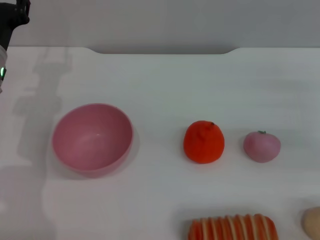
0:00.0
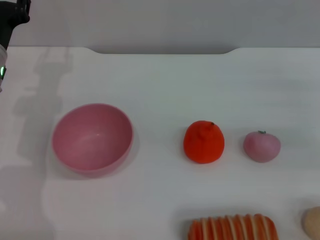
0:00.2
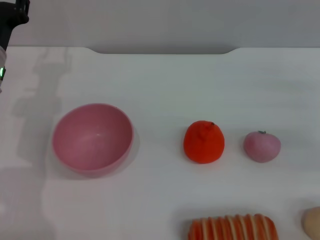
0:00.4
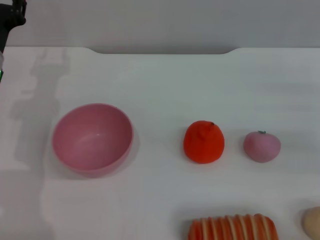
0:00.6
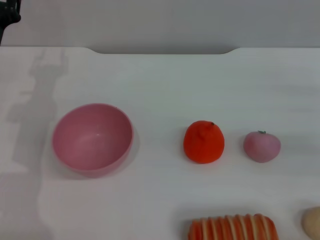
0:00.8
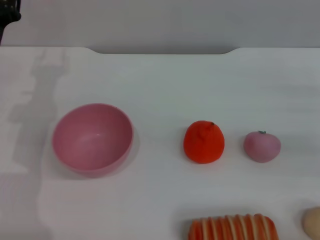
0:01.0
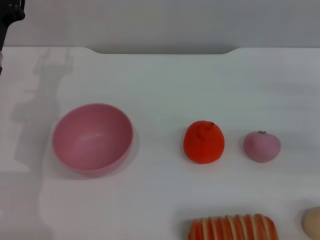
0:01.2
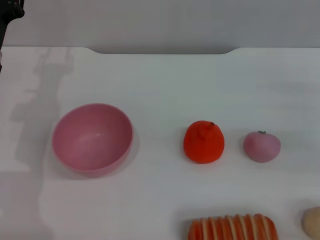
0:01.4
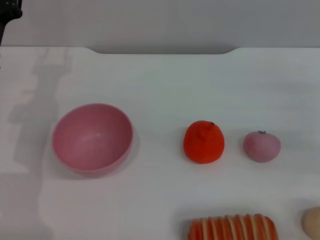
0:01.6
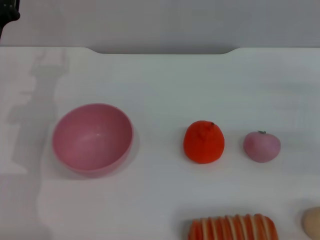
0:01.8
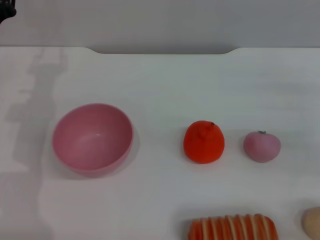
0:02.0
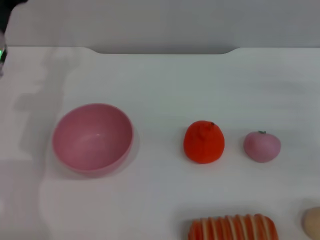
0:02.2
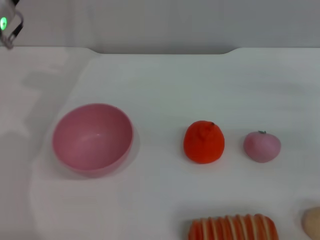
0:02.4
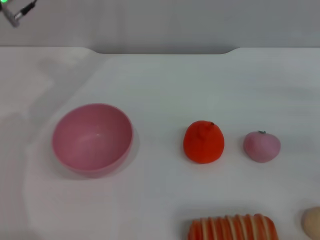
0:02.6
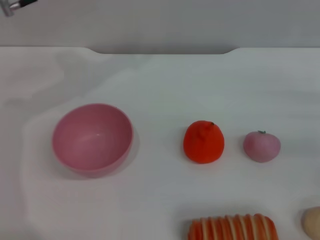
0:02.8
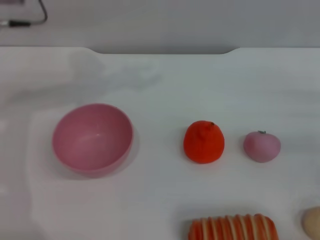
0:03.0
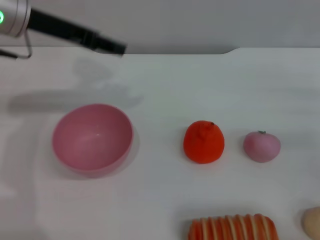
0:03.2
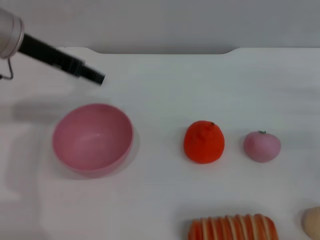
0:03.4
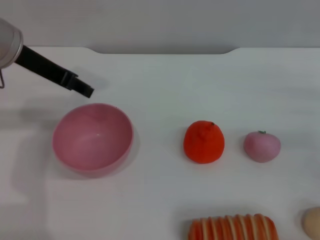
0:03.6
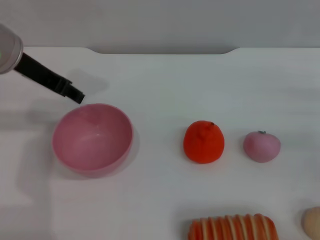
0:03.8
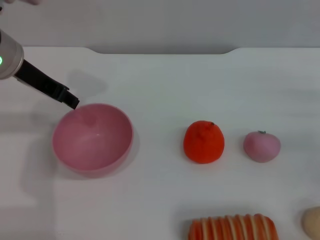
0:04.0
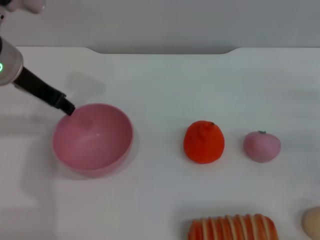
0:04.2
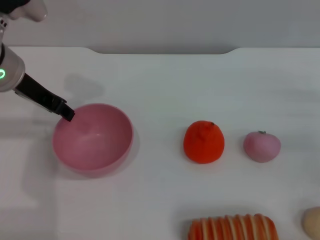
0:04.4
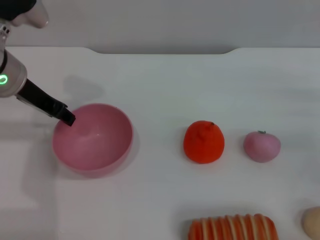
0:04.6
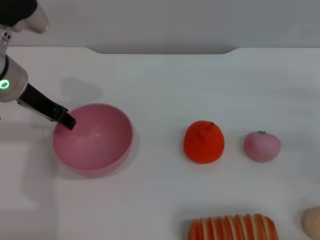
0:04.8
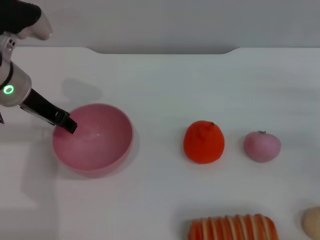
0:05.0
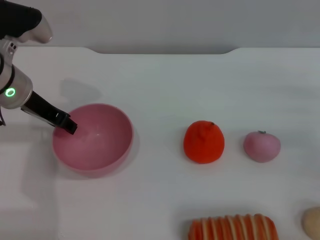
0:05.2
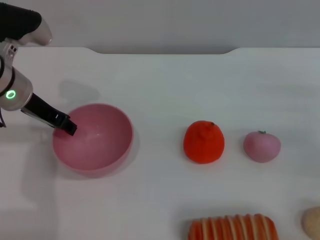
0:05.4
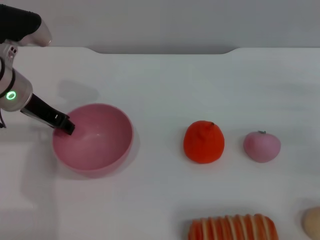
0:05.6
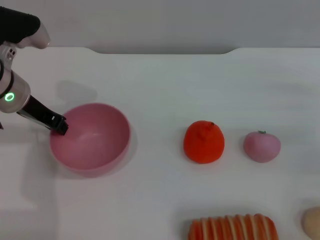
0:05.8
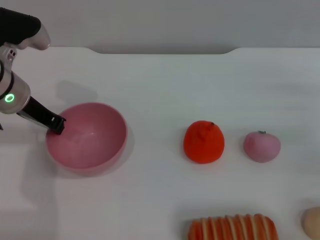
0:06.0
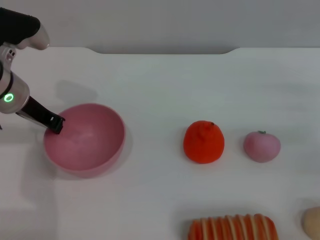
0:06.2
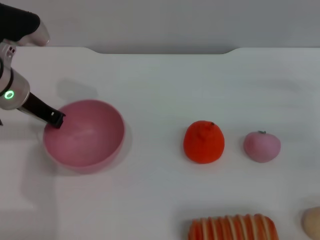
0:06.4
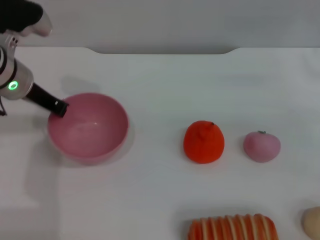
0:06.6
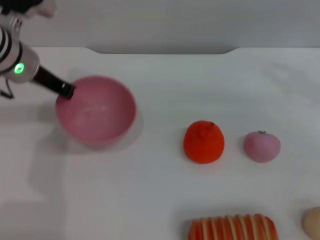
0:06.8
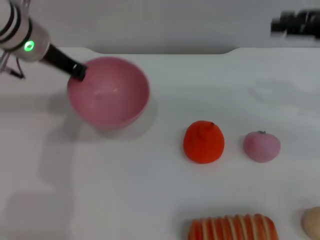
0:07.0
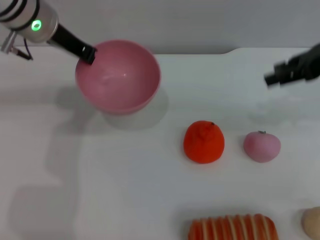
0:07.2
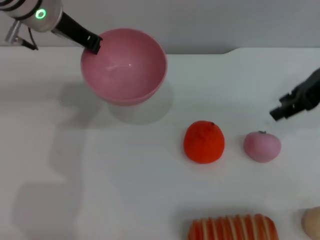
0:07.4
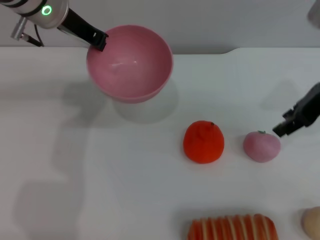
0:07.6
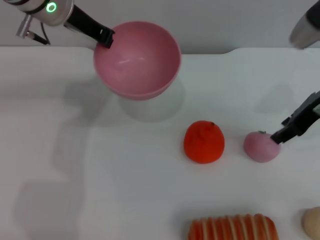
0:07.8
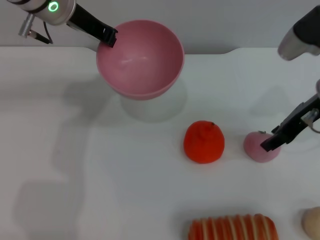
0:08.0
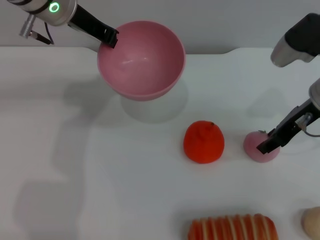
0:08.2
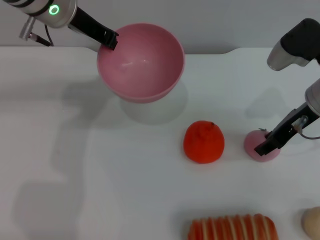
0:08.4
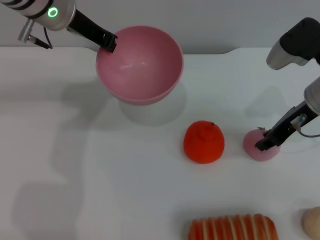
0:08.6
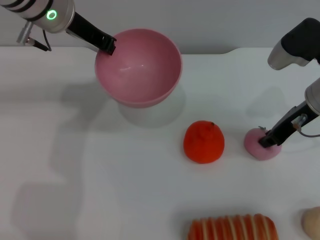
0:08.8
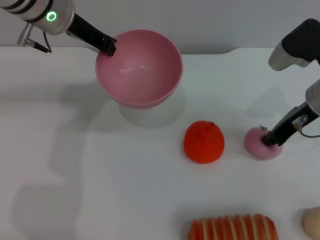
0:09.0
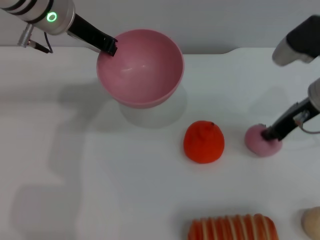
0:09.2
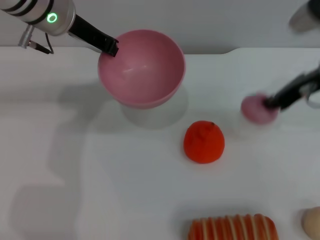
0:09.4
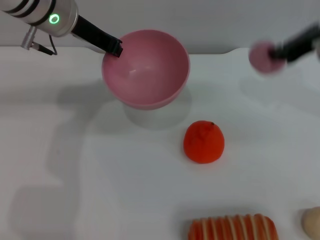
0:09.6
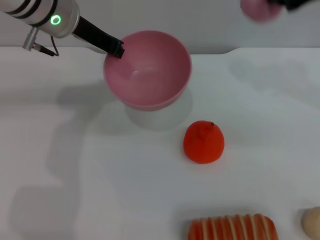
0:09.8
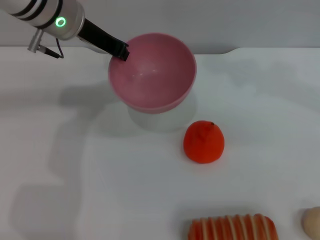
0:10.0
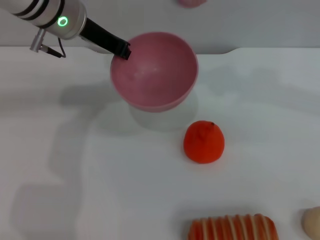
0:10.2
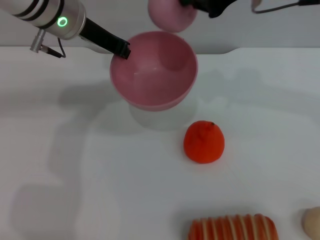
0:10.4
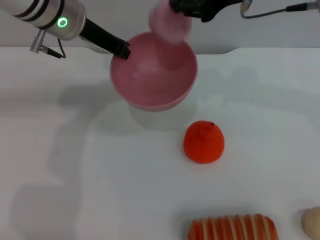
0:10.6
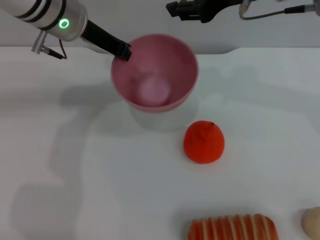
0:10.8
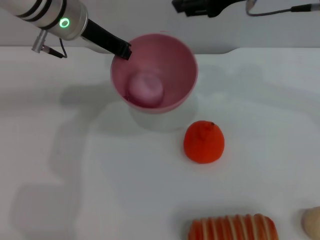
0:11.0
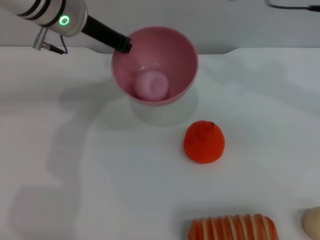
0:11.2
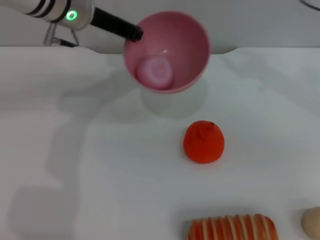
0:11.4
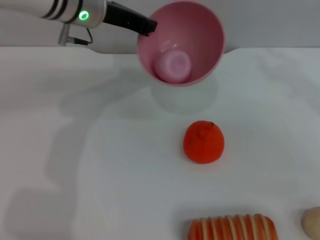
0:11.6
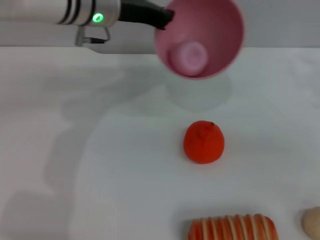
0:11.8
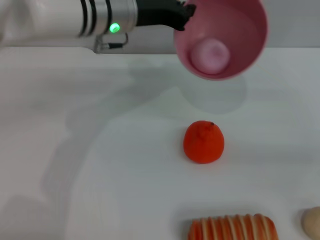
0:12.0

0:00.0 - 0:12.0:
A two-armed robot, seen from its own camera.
Task of the whole recording: put the peach into the pink bowl and pour it out repeatedly.
Step, 0:00.0 - 0:06.8: Pick up the bowl with the left gripper.
Step, 0:07.0 - 0:09.4: Pick up the peach with the right gripper.
Step, 0:09.6 - 0:11.0: Place the peach into the bowl.
0:00.0 - 0:01.6: The grippers make only small movements.
0:01.6 - 0:03.0: The left gripper heads upward, covering roughly 15 cm.
0:03.0 - 0:04.4: The left gripper shifts roughly 5 cm downward.
0:04.4 - 0:06.0: The left gripper closes up.
0:06.0 - 0:07.6: The left gripper travels upward, to the right and forward by approximately 10 cm, while the right gripper travels upward and to the left by approximately 15 cm.
0:07.6 - 0:09.0: The right gripper shifts some 10 cm downward, and closes.
0:09.0 - 0:10.4: The right gripper goes approximately 20 cm upward and to the left.
0:10.4 - 0:12.0: The left gripper travels to the right by about 5 cm; the right gripper is displaced to the right and downward by some 30 cm, and opens up.

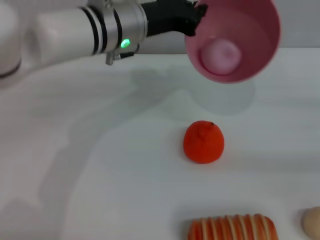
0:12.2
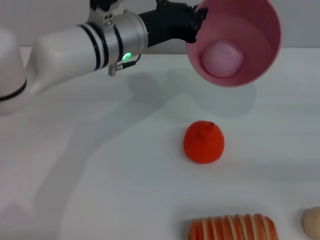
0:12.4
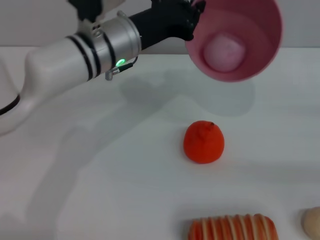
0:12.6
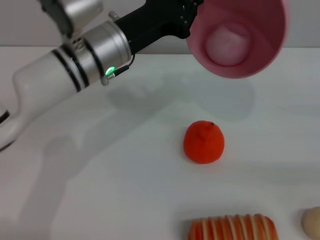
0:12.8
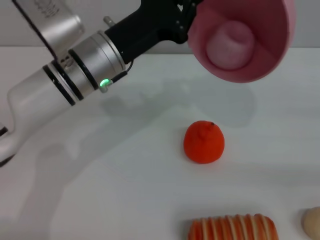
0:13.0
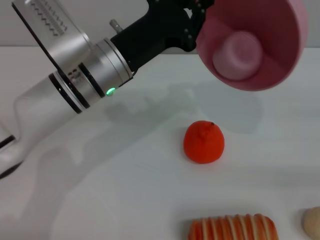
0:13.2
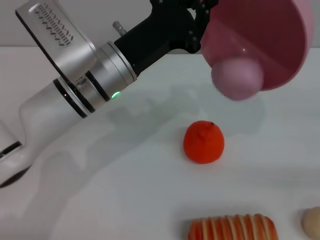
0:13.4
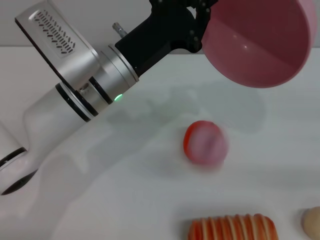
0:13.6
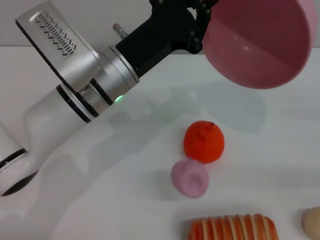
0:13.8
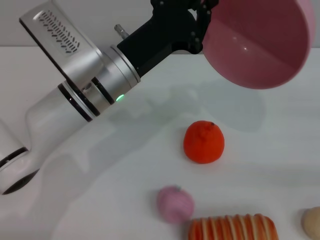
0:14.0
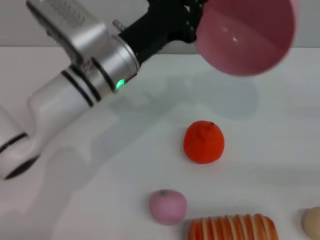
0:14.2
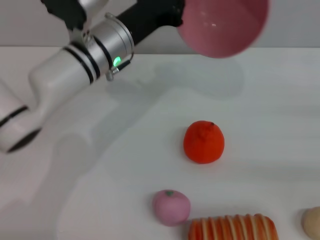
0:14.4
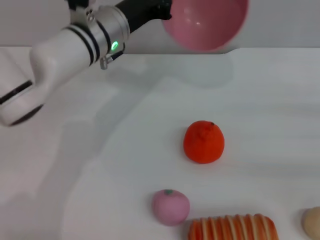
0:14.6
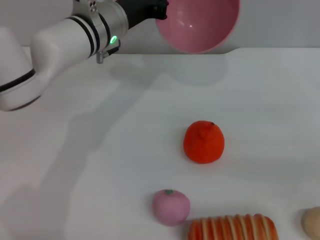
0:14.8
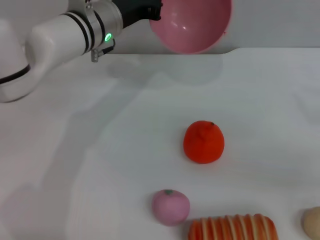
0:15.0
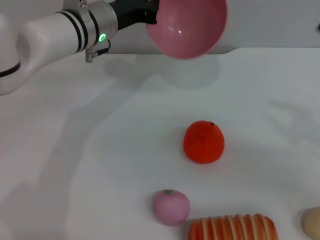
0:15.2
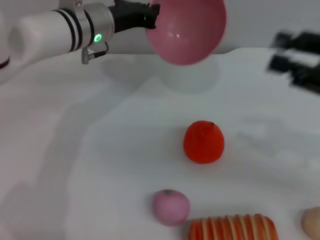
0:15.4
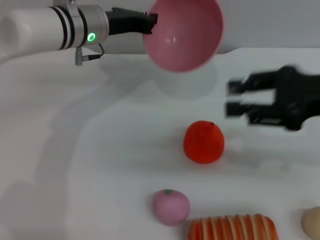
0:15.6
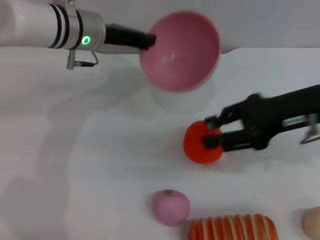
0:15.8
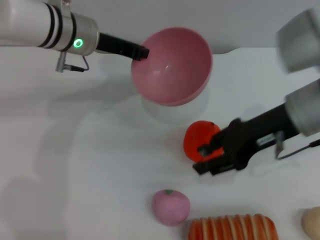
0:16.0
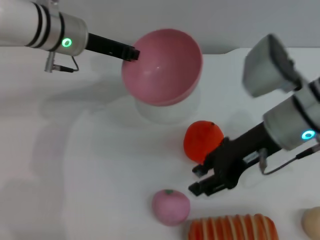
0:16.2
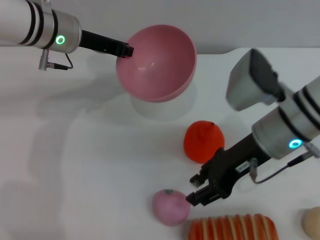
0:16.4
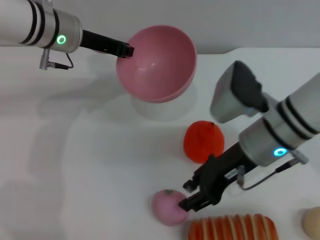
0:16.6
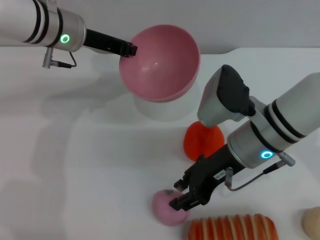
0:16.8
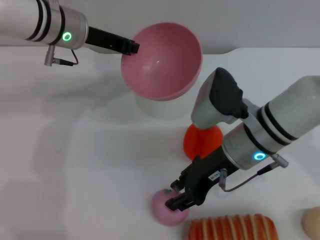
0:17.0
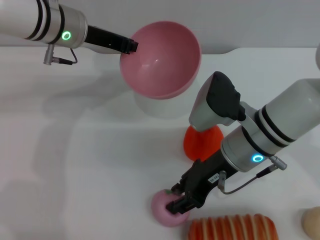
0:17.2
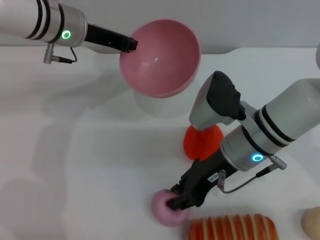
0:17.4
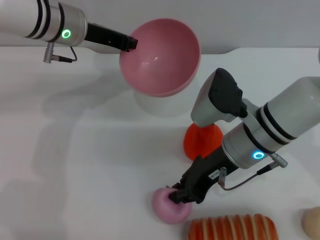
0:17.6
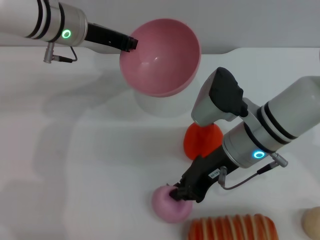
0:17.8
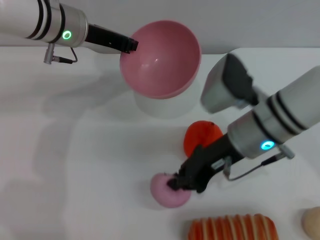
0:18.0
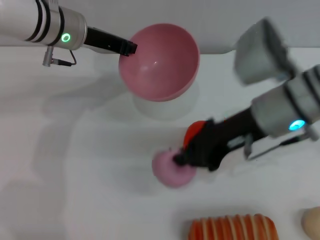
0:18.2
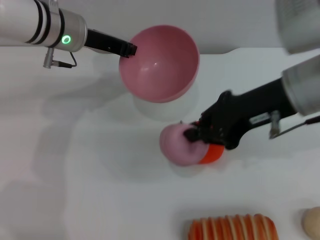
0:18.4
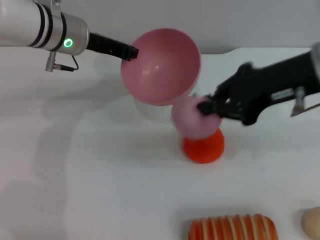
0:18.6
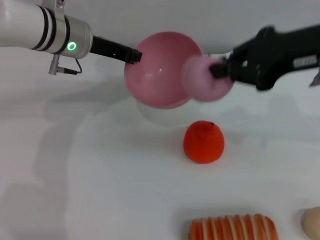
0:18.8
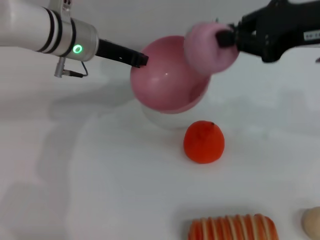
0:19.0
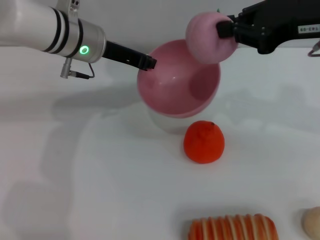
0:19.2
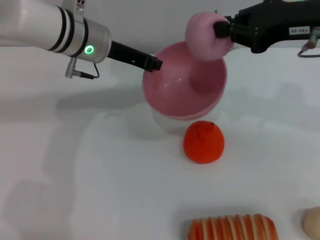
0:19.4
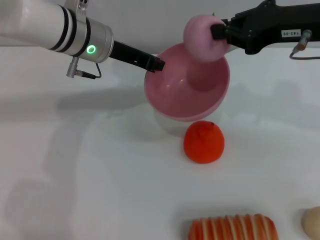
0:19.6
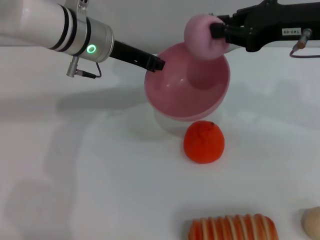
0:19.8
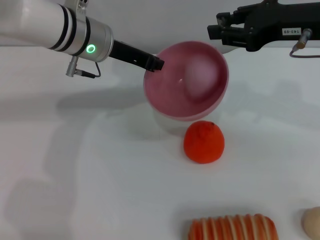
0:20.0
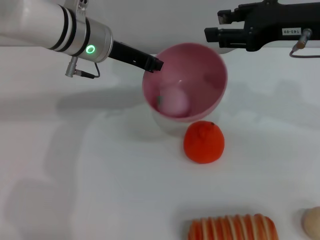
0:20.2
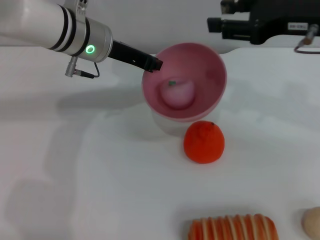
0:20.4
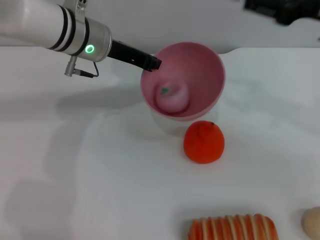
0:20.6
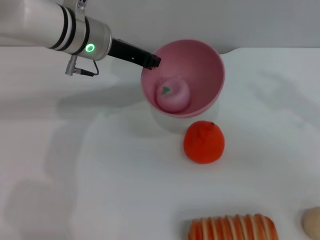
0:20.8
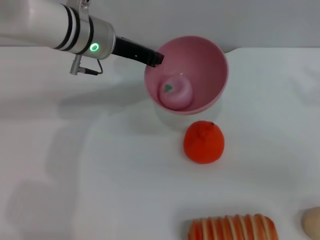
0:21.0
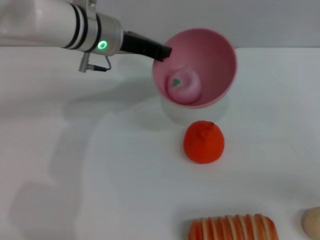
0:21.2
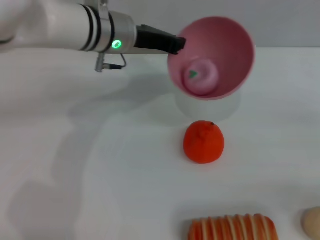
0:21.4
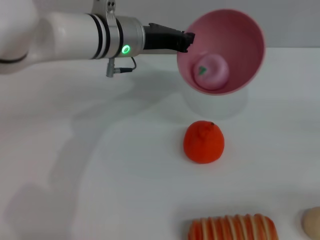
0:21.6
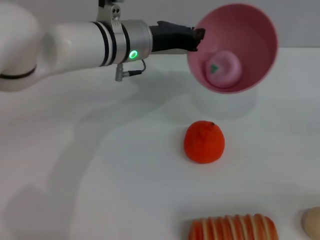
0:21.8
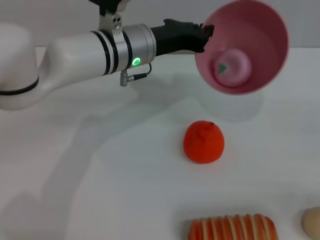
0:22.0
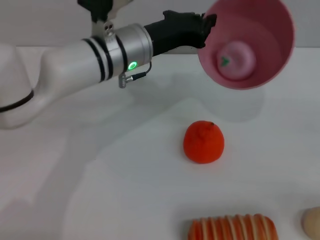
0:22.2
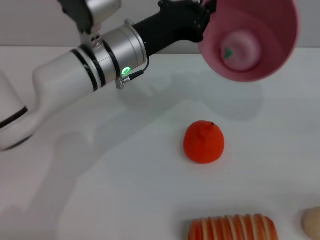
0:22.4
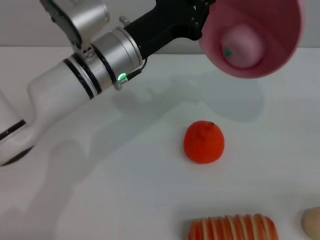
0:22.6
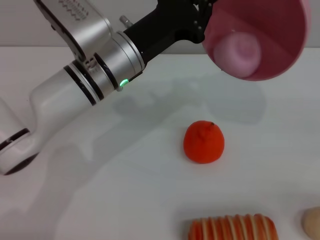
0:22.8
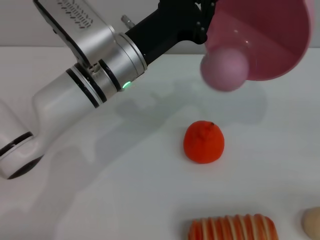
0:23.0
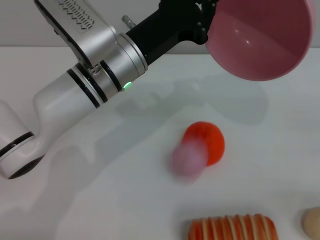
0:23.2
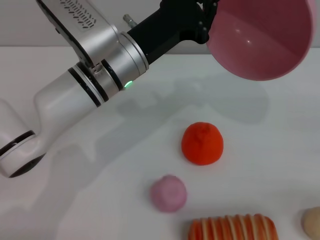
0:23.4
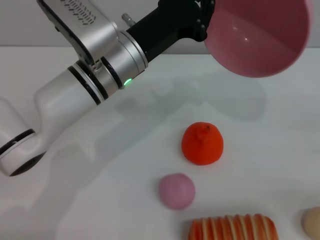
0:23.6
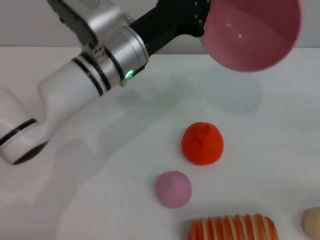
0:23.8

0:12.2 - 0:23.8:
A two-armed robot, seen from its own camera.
Task of the whole recording: put the peach into the pink bowl and pour it out repeatedly.
Step, 0:12.2 - 0:14.0: Pour the peach out of bowl.
Step, 0:14.4 - 0:18.2: Pick up the peach with the right gripper.
Step, 0:18.4 - 0:20.6: Place the peach into the bowl.
Step, 0:20.8 - 0:23.4: Pour the peach out of bowl.
0:12.2 - 0:13.6: The left gripper goes about 5 cm backward.
0:13.6 - 0:15.0: The right gripper moves to the left, roughly 5 cm. The left gripper heads forward, covering about 10 cm.
0:15.0 - 0:16.6: The left gripper shifts roughly 5 cm to the left. The right gripper is displaced to the left by some 20 cm.
0:16.6 - 0:18.0: The right gripper closes its fingers.
0:18.0 - 0:19.4: The right gripper moves upward and to the right, about 15 cm.
0:19.4 - 0:21.0: The right gripper goes some 15 cm to the right, downward and backward, and opens its fingers.
0:21.0 - 0:22.4: The left gripper travels backward by some 5 cm. Meanwhile the right gripper travels to the right, downward and backward by roughly 15 cm.
0:22.4 - 0:23.8: The grippers stay close to where they were, moving slightly.
